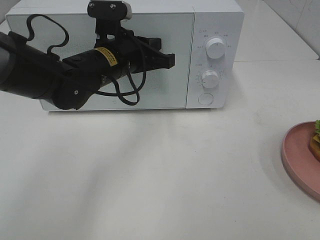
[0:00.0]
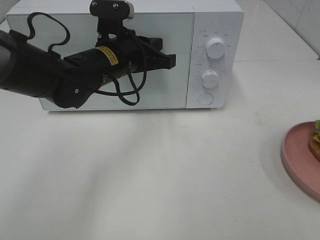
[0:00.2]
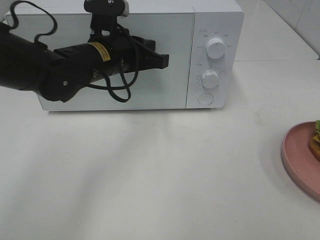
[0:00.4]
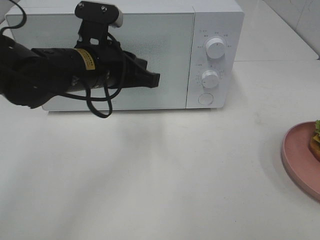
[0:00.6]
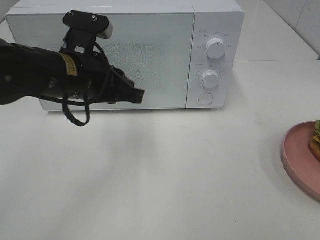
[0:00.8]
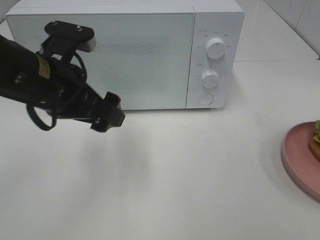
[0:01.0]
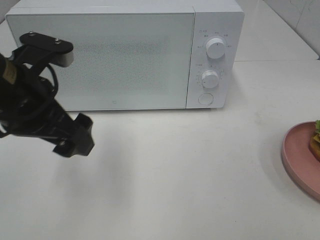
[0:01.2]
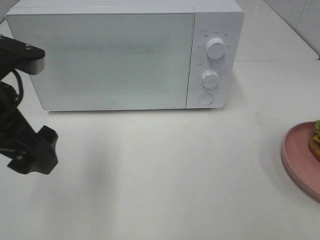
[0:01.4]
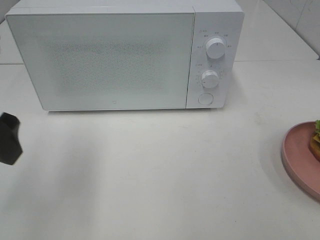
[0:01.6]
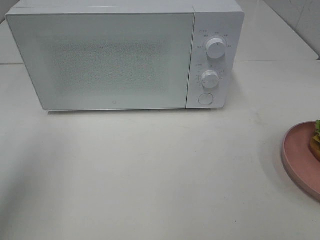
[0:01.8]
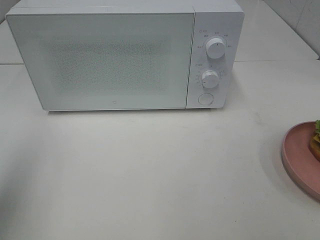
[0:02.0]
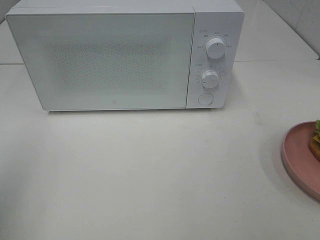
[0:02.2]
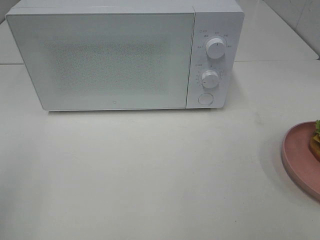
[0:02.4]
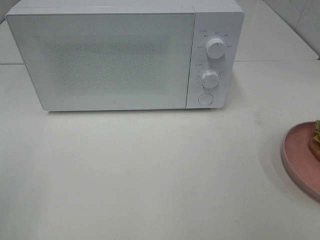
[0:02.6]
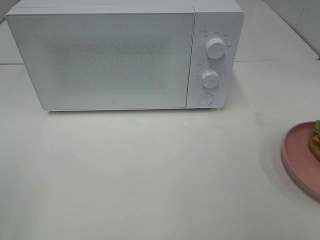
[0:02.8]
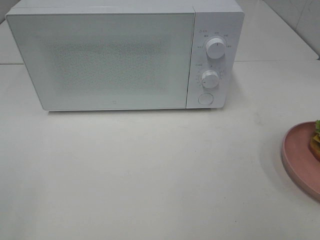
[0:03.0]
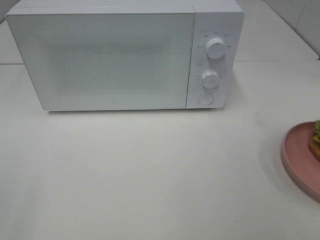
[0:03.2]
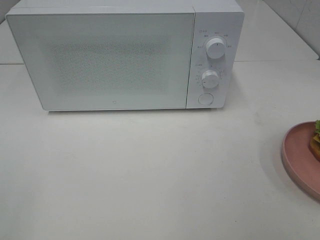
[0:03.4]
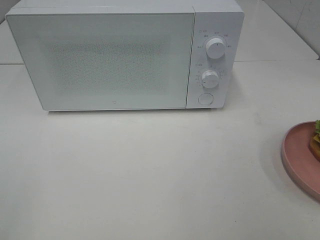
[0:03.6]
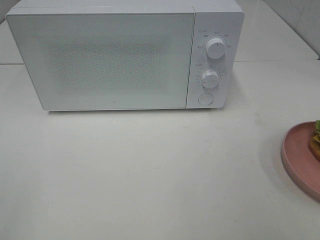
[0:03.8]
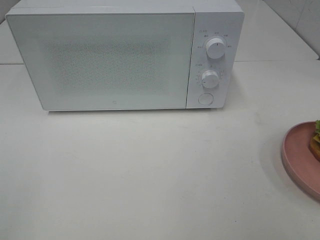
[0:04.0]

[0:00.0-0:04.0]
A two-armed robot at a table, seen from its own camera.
Task of the whole recording: Heat the burger.
0:00.0 to 0:01.4: The left gripper is displaced backward, to the left and upward by some 20 cm, and opens up.
0:01.4 to 0:02.6: The left gripper moves backward and to the left, roughly 20 cm.

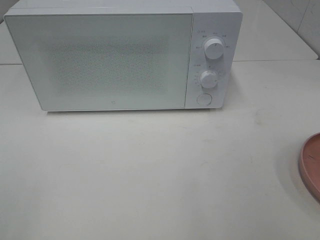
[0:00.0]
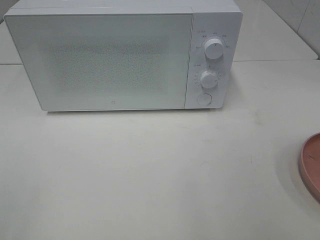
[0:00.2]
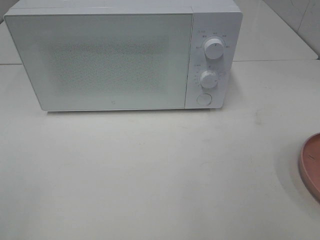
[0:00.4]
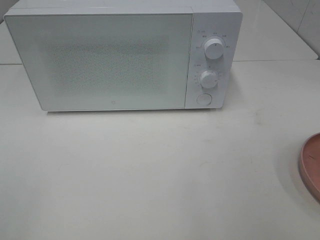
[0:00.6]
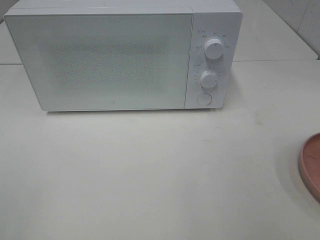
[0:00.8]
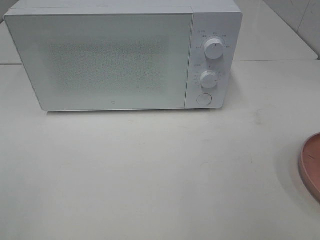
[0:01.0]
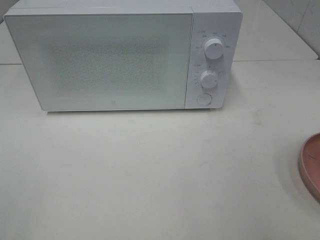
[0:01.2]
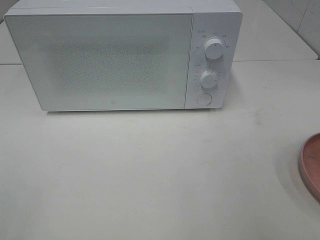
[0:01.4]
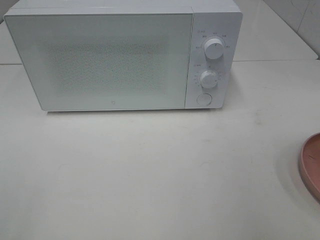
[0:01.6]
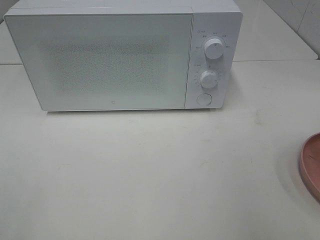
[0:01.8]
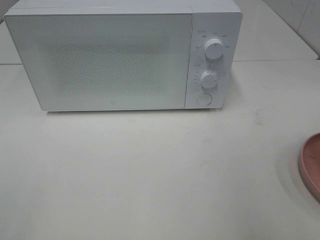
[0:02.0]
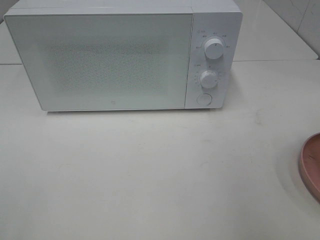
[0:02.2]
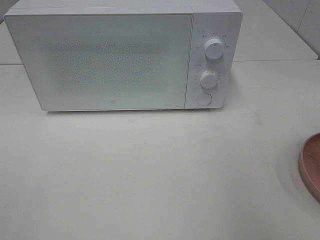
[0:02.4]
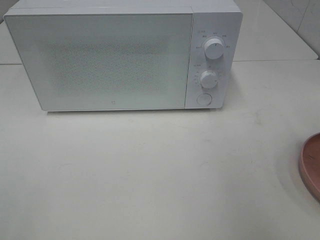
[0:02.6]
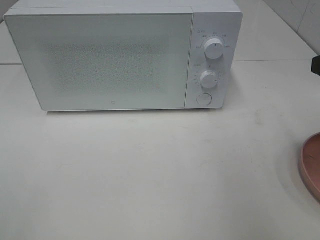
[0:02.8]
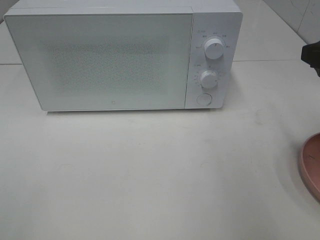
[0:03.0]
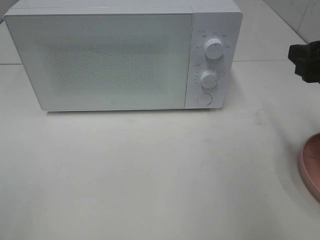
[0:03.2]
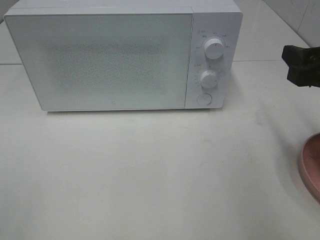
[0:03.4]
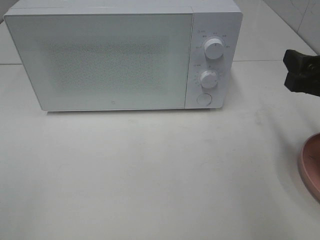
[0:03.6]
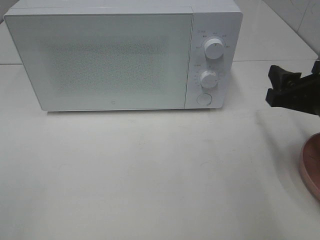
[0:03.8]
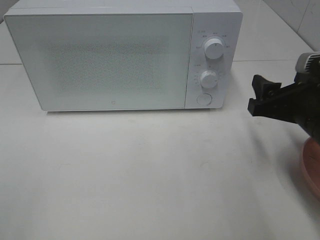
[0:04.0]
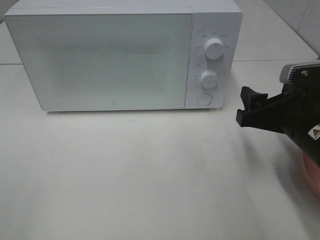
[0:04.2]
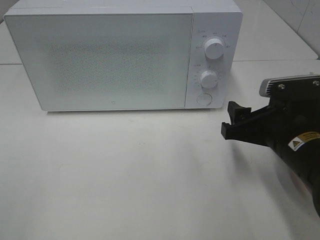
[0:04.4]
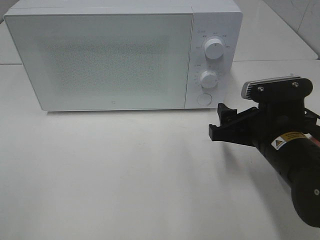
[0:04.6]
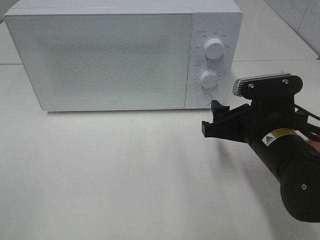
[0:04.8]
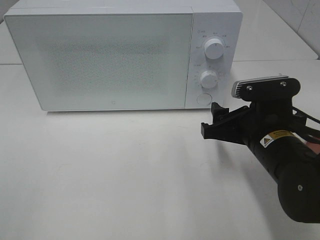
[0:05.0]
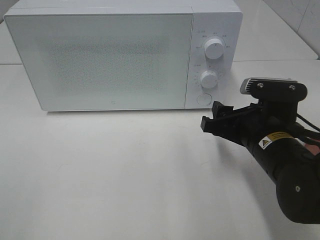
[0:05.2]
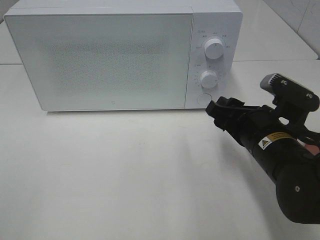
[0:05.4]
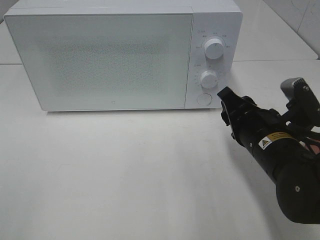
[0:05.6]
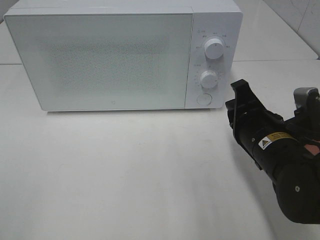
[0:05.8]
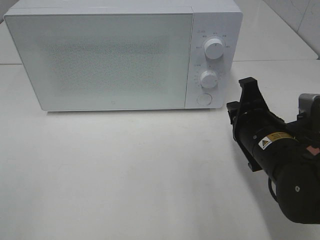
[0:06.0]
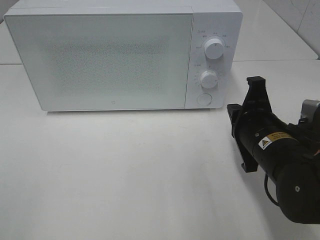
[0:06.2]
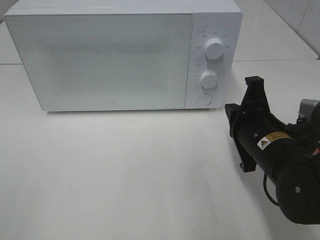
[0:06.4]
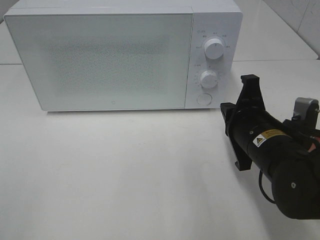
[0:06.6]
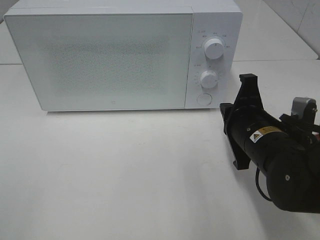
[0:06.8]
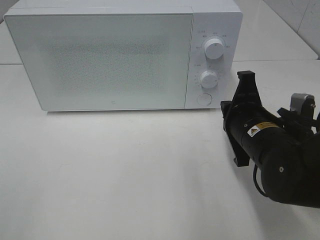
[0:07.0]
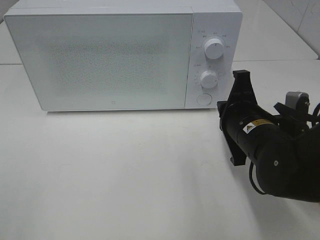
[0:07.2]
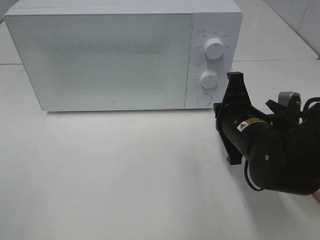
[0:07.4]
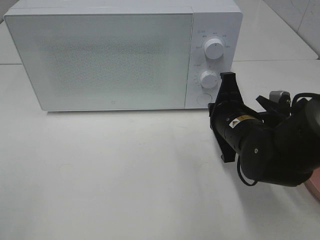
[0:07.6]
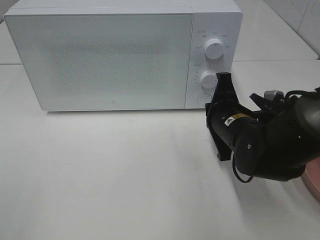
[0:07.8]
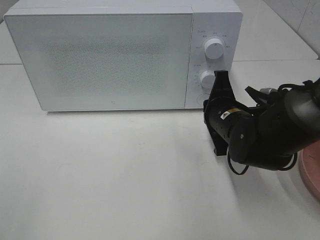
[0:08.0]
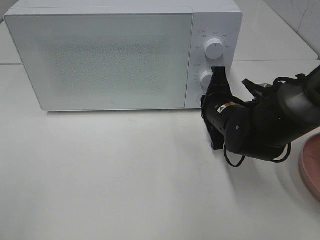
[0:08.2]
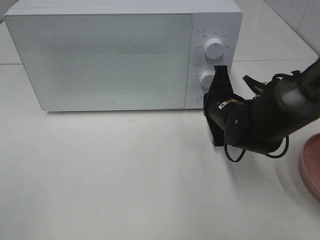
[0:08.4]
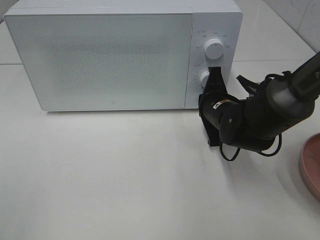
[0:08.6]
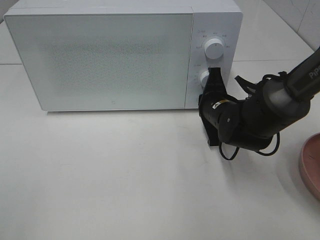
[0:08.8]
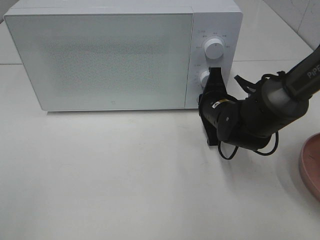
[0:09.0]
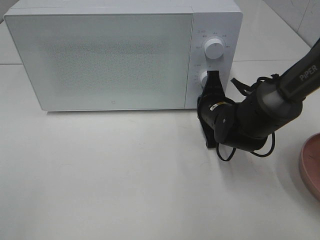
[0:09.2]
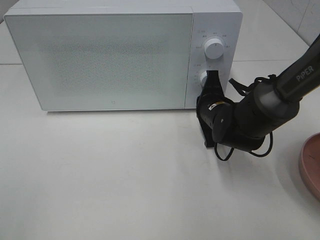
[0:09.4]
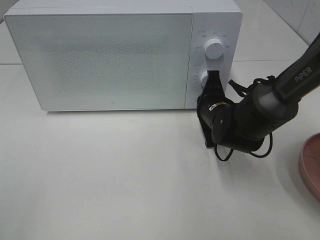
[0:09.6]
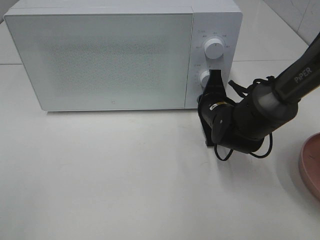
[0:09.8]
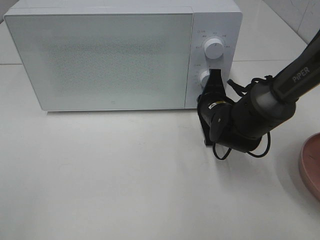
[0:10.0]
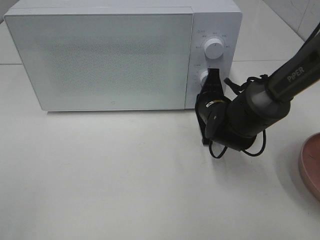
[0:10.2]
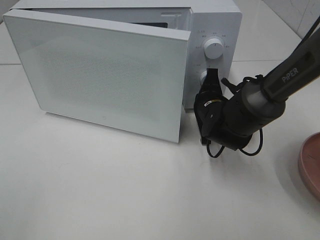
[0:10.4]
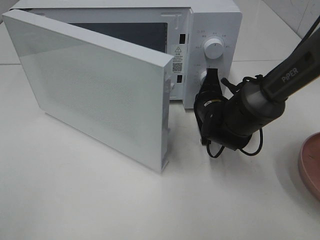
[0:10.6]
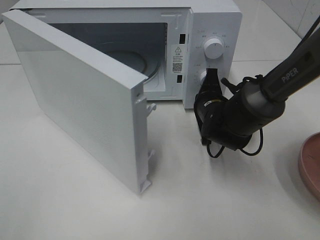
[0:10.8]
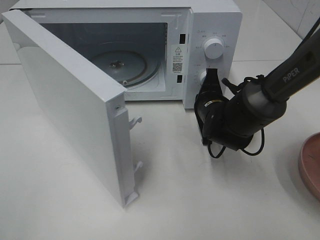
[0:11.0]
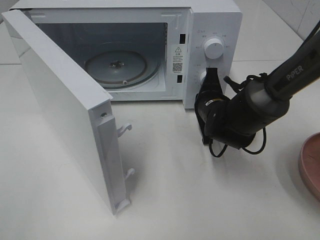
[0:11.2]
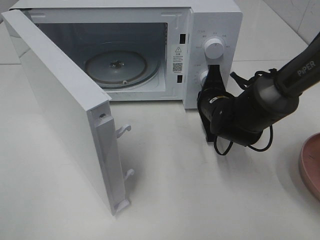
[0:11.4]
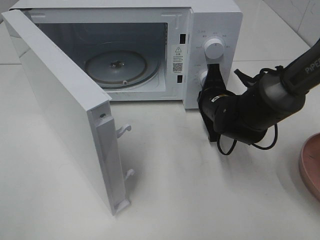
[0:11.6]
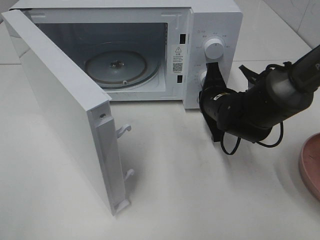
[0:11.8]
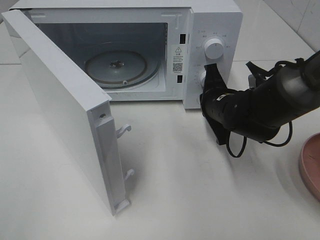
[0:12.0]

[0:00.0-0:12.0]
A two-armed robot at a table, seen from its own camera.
Task of the whole recording: Heat the burger.
0:01.6 to 0:03.0: The right gripper goes roughly 15 cm forward.
0:03.0 to 0:04.4: The right gripper heads downward and to the left, covering approximately 15 cm.
0:04.4 to 0:06.0: The right gripper closes up.
0:06.0 to 0:07.6: The right gripper moves some 5 cm.
0:07.6 to 0:09.0: The right gripper heads forward, covering roughly 5 cm.
0:09.0 to 0:10.4: The grippers make only small movements.

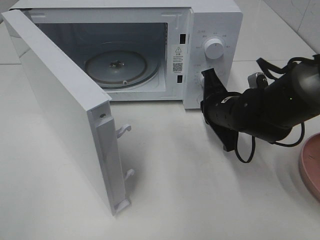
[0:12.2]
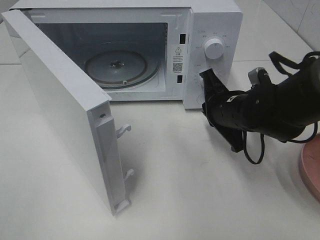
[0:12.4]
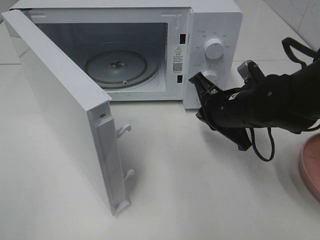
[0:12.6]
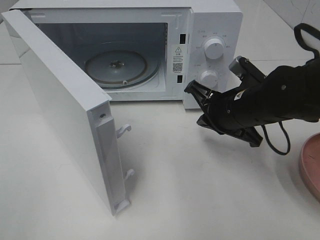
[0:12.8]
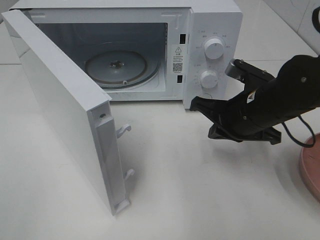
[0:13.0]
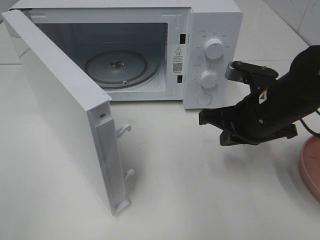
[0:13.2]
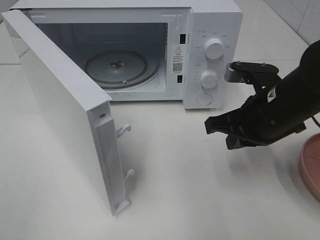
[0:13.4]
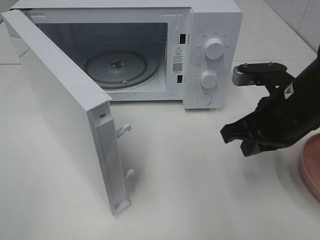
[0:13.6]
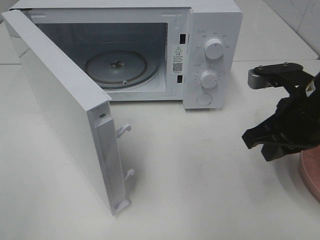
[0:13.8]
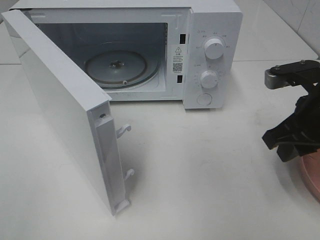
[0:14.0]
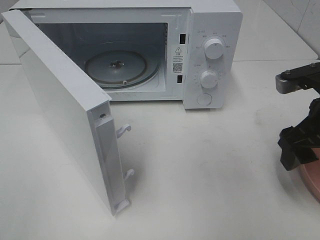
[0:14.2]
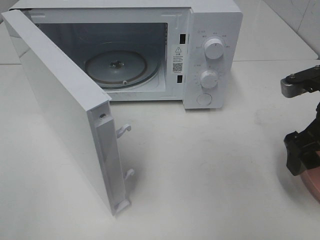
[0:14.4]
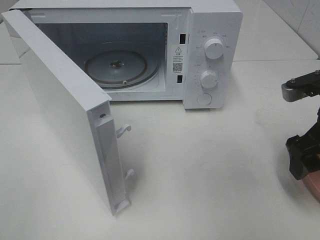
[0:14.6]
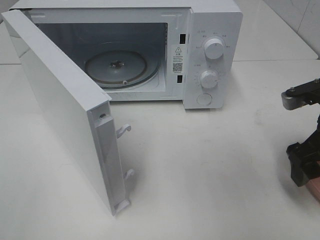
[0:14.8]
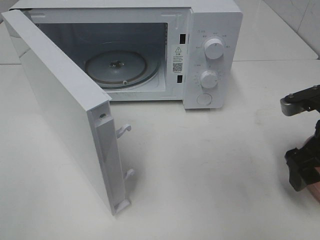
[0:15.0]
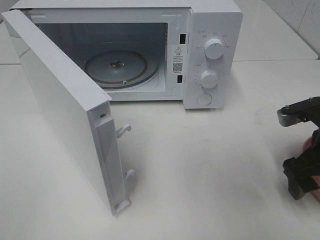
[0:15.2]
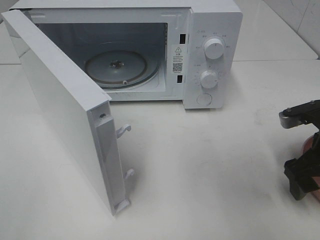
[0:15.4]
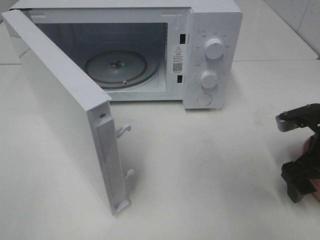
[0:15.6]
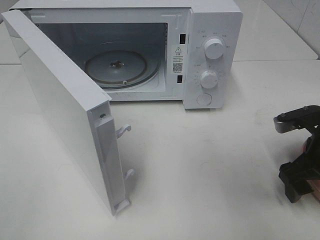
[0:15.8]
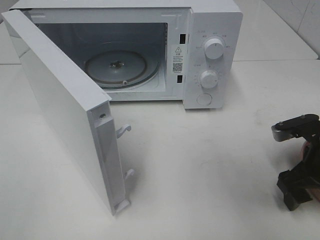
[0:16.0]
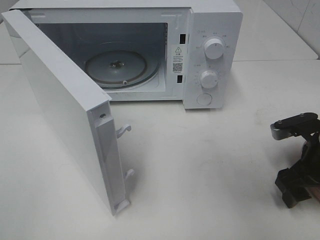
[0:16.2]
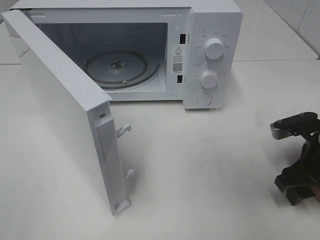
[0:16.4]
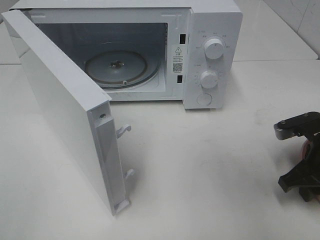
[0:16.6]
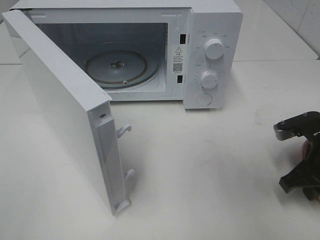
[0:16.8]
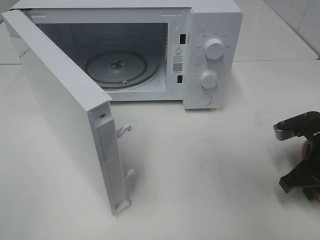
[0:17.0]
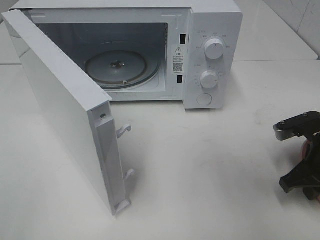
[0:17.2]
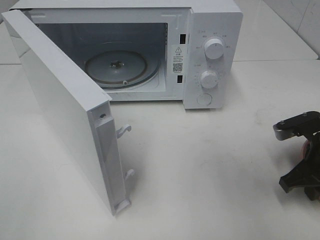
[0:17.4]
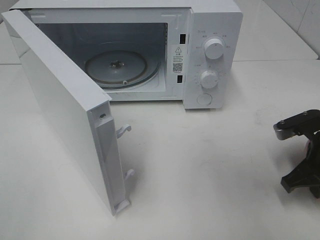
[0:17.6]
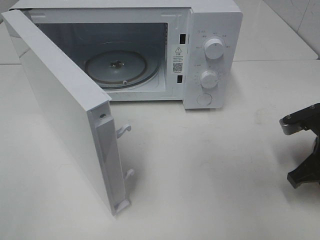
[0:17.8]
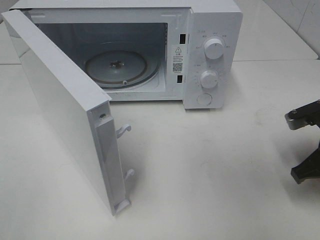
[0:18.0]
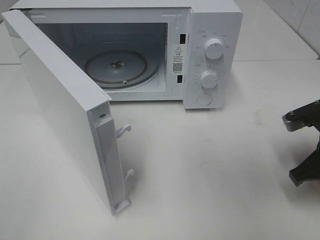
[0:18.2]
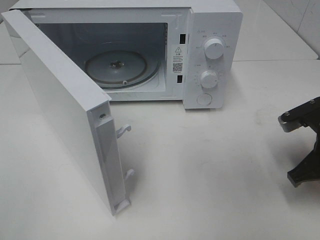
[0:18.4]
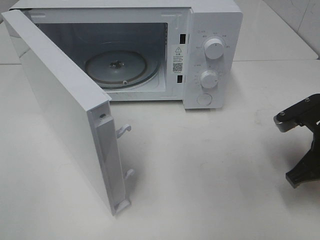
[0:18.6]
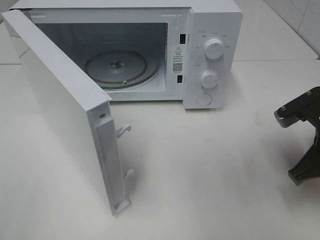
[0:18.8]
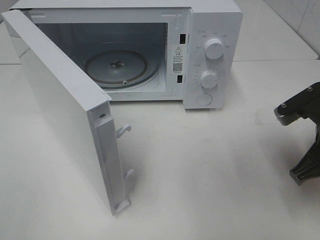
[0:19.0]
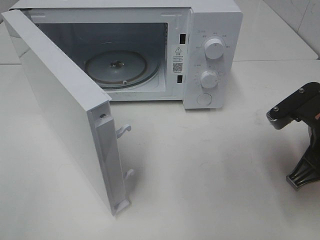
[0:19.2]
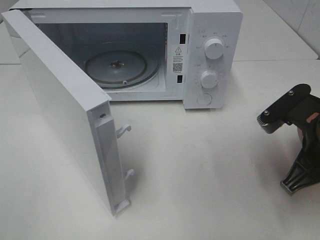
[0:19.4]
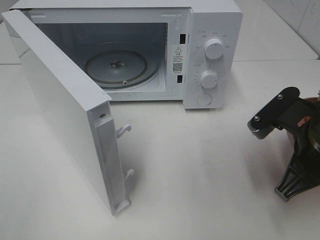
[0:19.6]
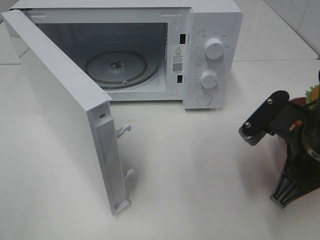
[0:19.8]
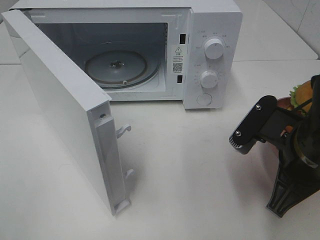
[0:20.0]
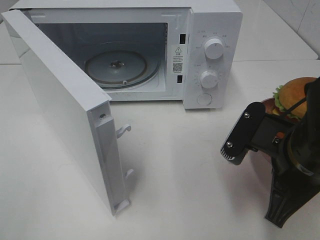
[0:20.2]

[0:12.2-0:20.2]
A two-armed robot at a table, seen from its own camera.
Task of the whole recording: Heat the burger.
Step, 0:12.4 to 0:17.8: Right hand: grab the plate with the hamburger.
0:12.2 to 0:13.8: The right gripper shifts about 15 cm upward, backward and to the right.
0:13.8 to 0:15.4: The right gripper is displaced to the right and downward by roughly 10 cm, and opens its fingers.
0:15.4 to 0:17.0: The right gripper closes its fingers.
0:17.0 to 0:18.6: The grippers make only small movements.
0:18.6 to 0:20.2: The right gripper heads to the left and backward, covering roughly 10 cm.
